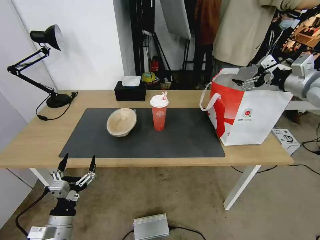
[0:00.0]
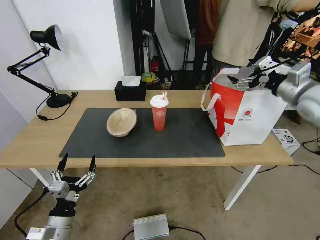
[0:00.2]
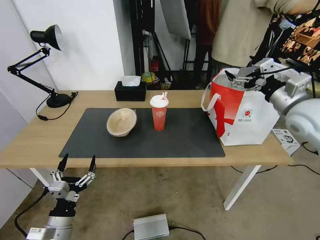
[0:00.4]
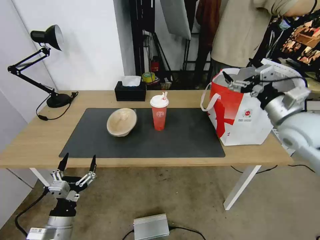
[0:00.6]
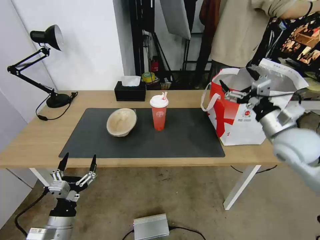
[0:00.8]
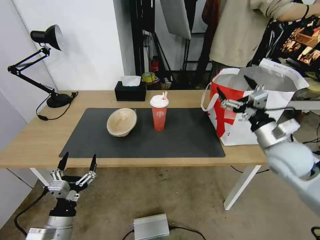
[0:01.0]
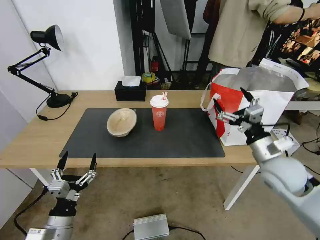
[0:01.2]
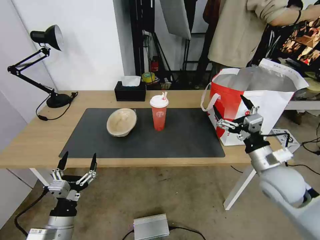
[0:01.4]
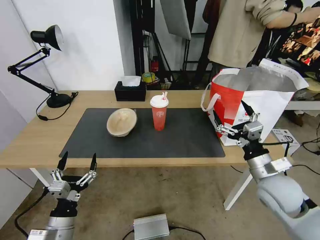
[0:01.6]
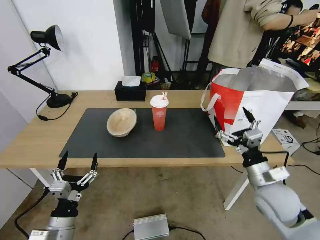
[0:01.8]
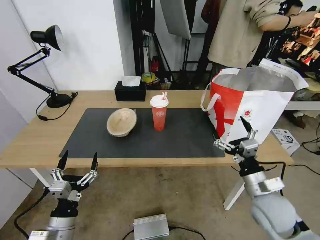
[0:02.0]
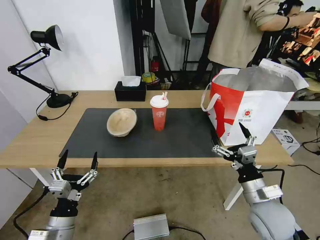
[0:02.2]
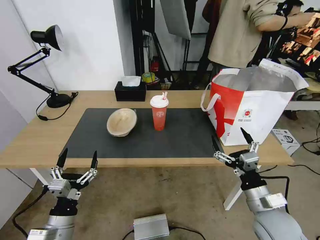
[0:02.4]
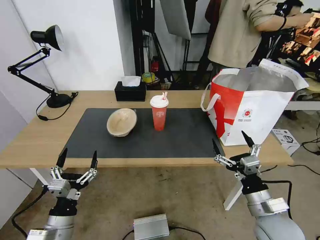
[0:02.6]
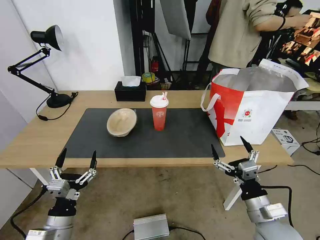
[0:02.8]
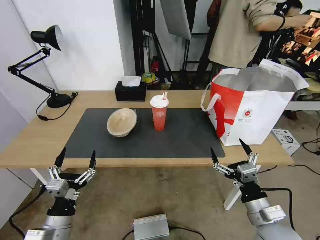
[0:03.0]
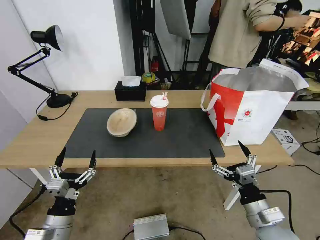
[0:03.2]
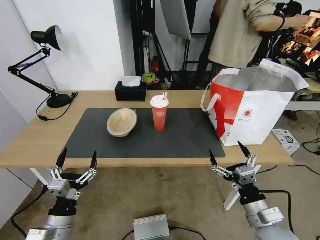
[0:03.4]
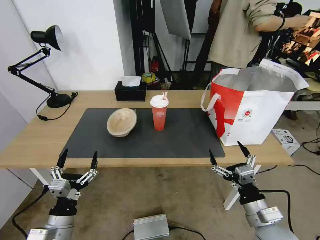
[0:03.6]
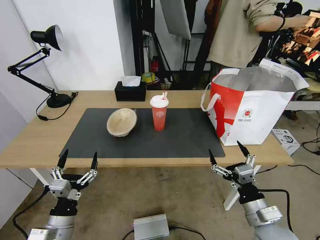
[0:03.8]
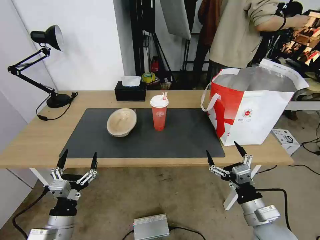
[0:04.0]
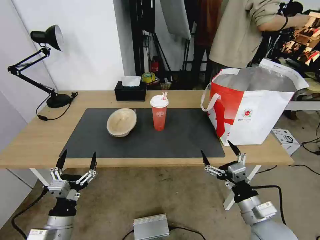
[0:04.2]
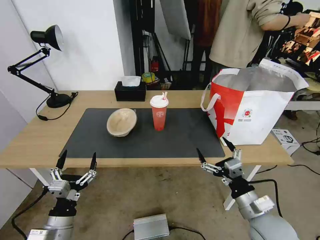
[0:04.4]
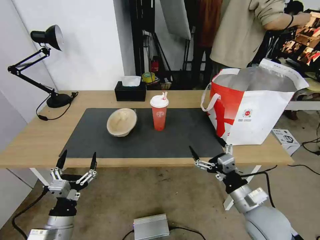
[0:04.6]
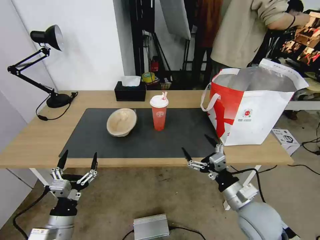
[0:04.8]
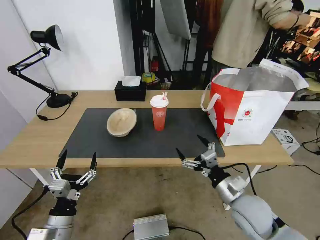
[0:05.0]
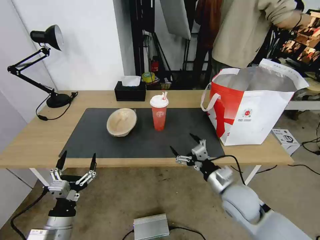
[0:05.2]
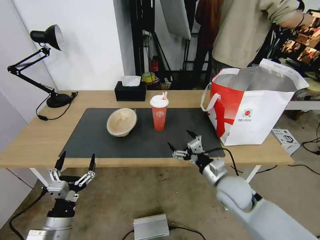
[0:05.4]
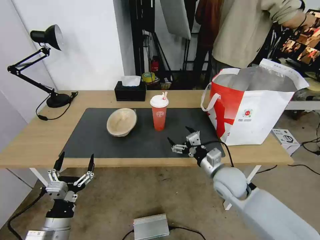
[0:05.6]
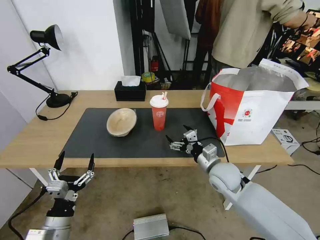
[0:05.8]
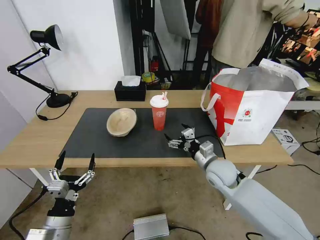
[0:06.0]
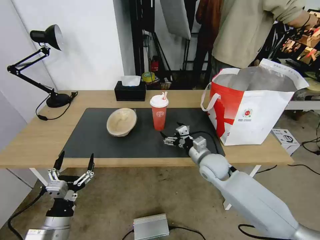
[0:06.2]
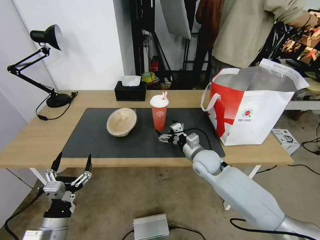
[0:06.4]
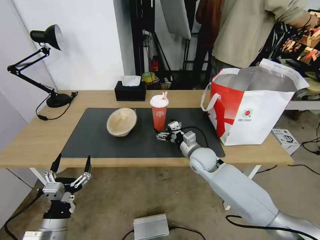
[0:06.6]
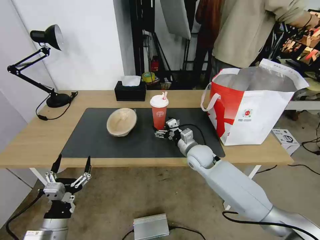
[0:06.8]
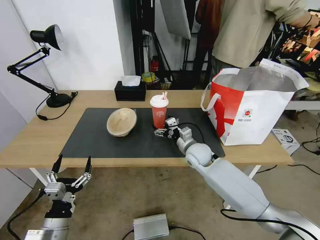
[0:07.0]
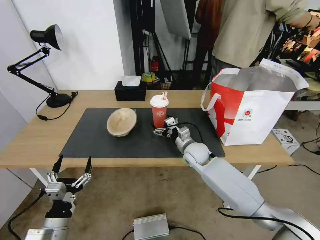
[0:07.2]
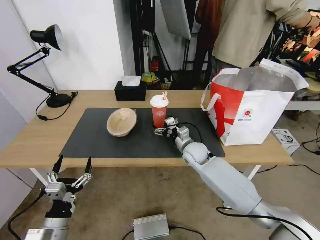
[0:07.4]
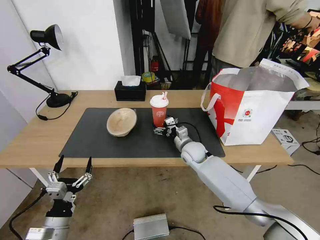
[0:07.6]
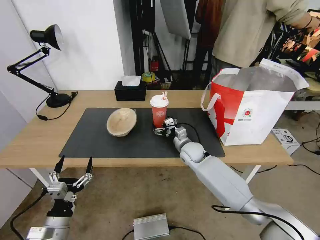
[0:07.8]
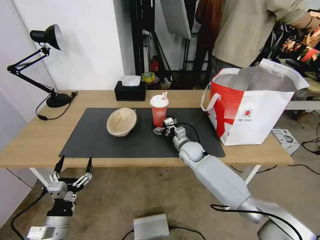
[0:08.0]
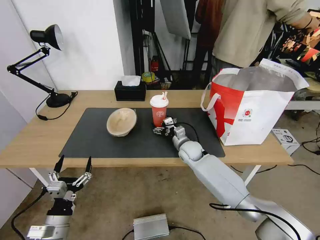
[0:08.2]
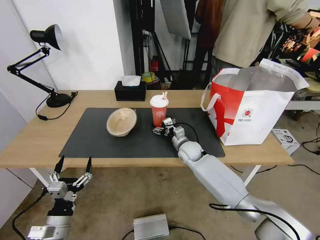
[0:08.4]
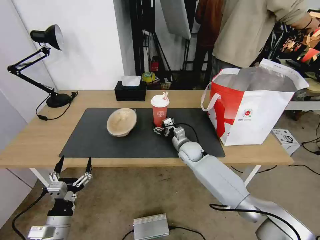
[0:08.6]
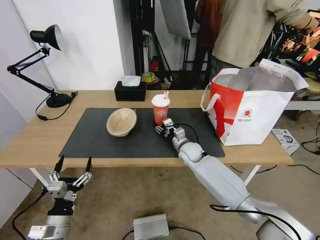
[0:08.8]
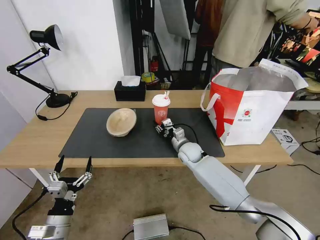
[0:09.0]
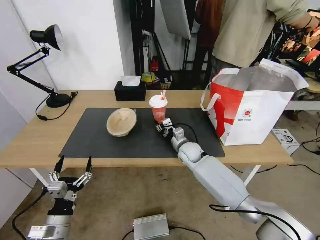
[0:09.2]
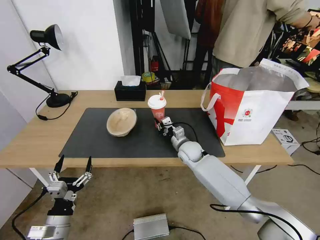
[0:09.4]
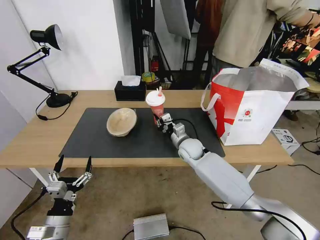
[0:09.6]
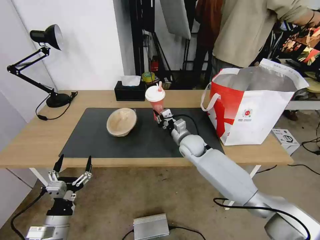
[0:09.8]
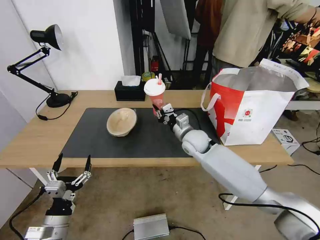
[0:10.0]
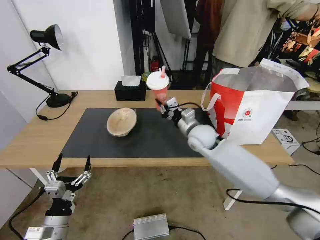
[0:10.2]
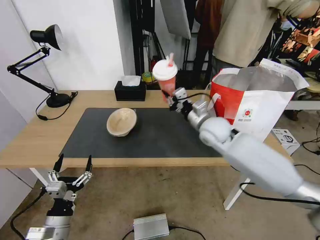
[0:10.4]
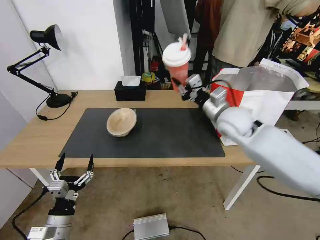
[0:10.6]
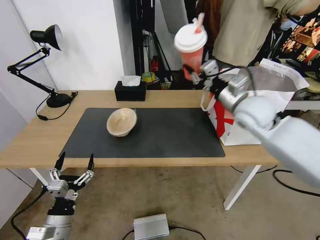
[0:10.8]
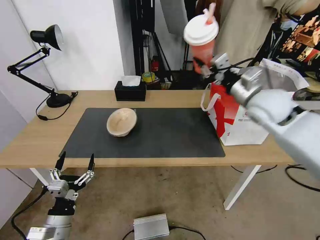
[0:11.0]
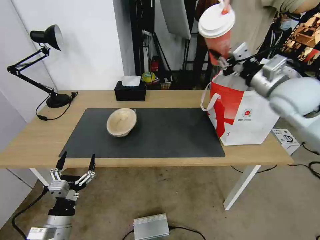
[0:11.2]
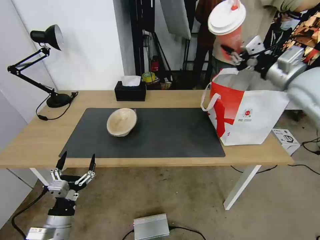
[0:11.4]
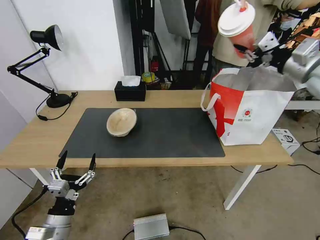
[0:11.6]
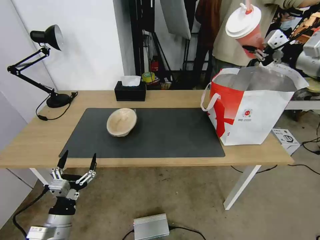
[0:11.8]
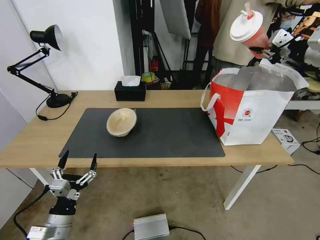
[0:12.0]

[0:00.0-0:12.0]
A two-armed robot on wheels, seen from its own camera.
Task of the whole recording: Pick up the trash from the table and place it into the takeout bag.
0:00.0 to 0:01.6: The right gripper goes about 30 cm downward, backward and to the left.
0:01.6 to 0:03.0: The right gripper is displaced backward and downward by approximately 10 cm.
0:03.0 to 0:04.4: The grippers stay close to where they were, moving slightly.
0:04.4 to 0:06.0: The right gripper goes roughly 20 cm forward.
0:06.0 to 0:07.6: The right gripper heads forward and to the left, covering roughly 15 cm.
0:07.6 to 0:09.0: The right gripper closes.
0:09.0 to 0:10.4: The right gripper is displaced upward by about 15 cm.
0:10.4 to 0:12.0: The right gripper travels to the right and upward by approximately 35 cm.

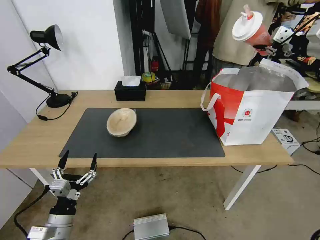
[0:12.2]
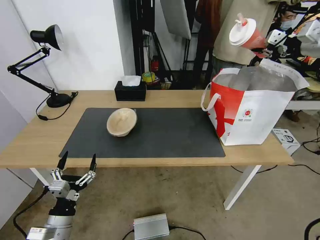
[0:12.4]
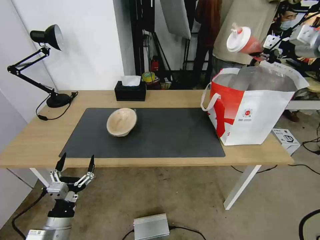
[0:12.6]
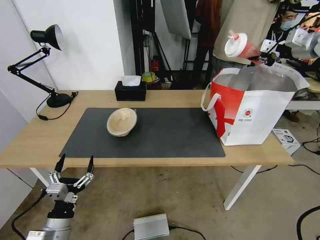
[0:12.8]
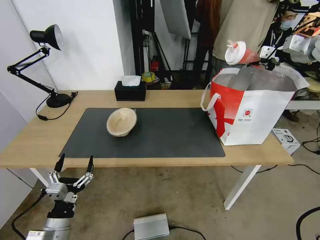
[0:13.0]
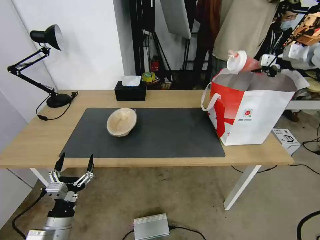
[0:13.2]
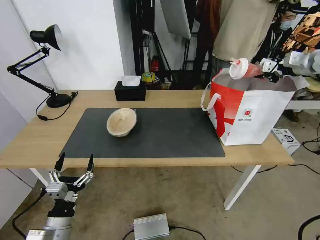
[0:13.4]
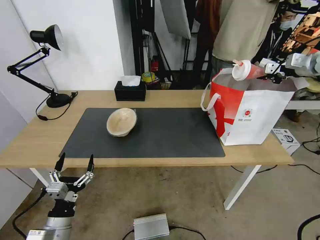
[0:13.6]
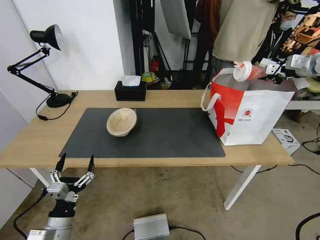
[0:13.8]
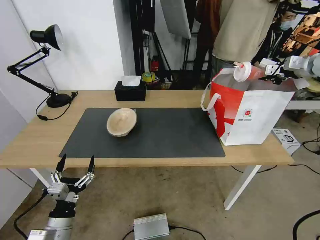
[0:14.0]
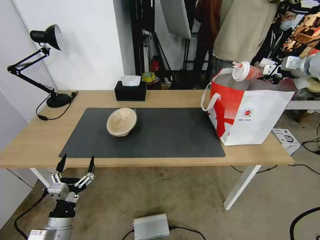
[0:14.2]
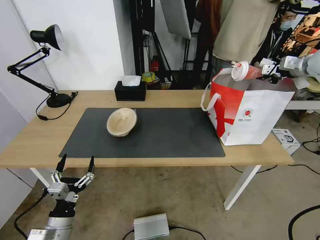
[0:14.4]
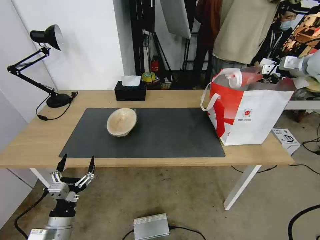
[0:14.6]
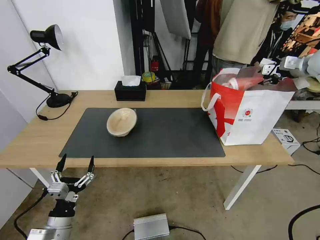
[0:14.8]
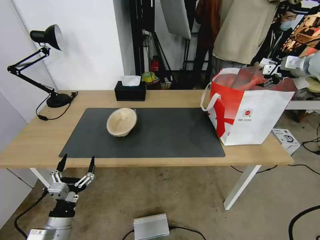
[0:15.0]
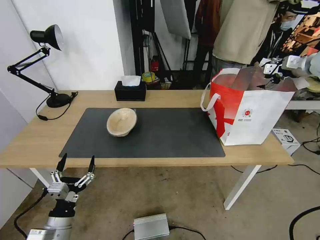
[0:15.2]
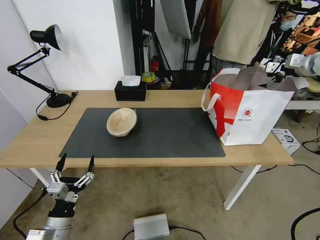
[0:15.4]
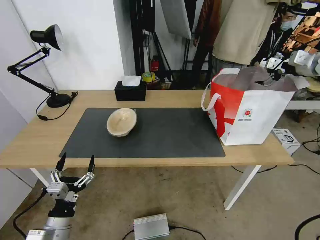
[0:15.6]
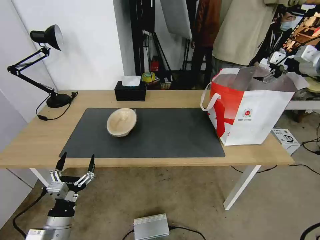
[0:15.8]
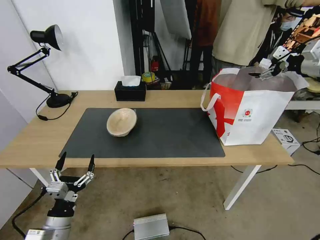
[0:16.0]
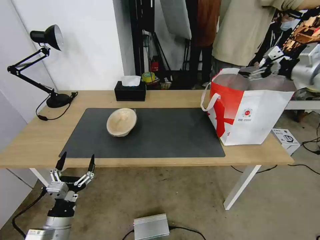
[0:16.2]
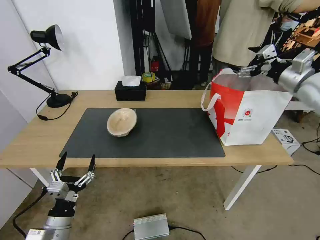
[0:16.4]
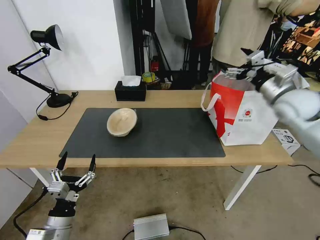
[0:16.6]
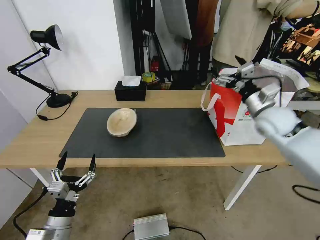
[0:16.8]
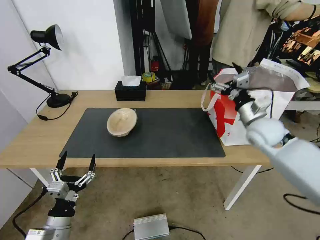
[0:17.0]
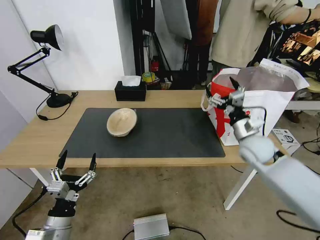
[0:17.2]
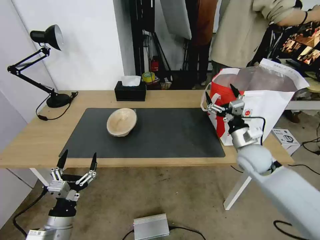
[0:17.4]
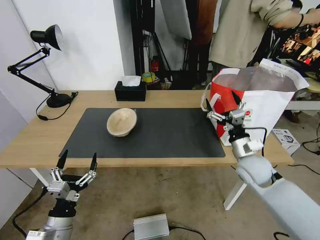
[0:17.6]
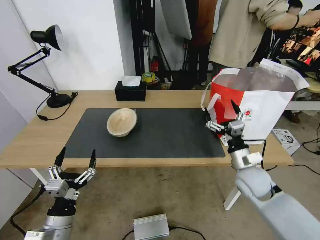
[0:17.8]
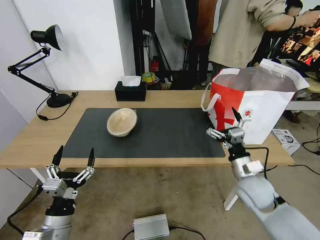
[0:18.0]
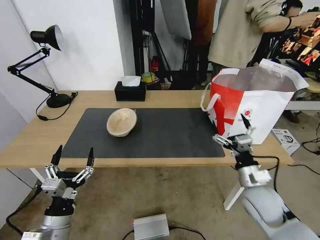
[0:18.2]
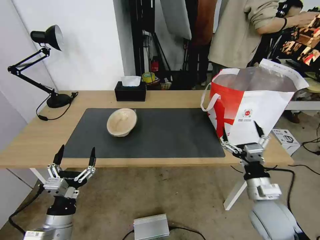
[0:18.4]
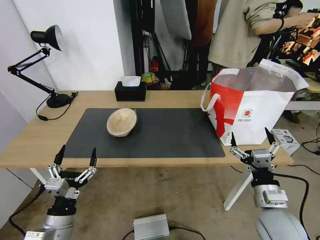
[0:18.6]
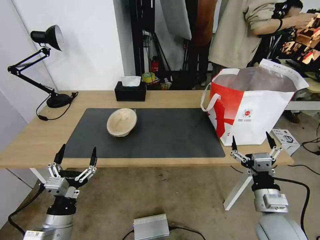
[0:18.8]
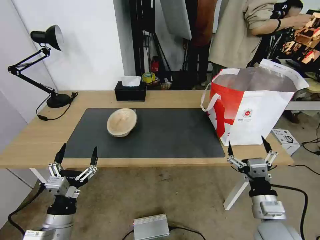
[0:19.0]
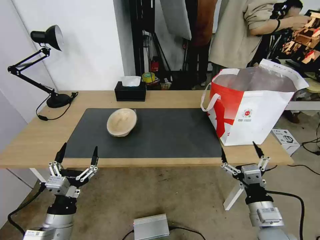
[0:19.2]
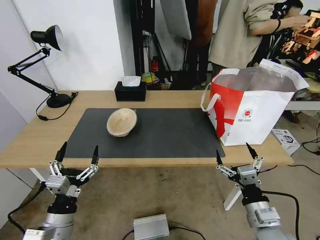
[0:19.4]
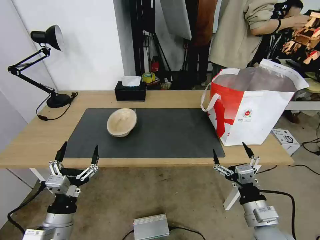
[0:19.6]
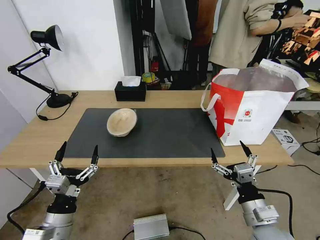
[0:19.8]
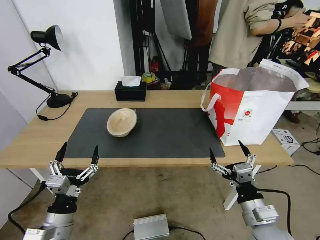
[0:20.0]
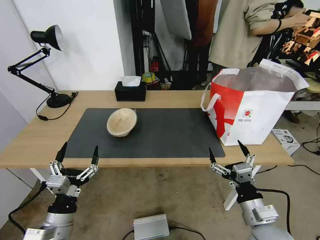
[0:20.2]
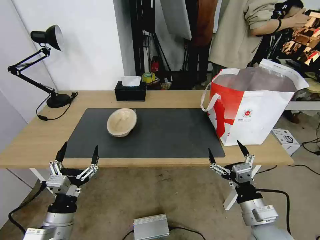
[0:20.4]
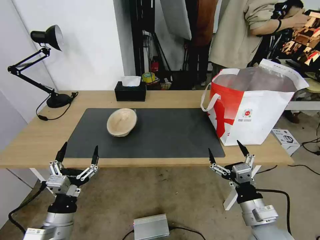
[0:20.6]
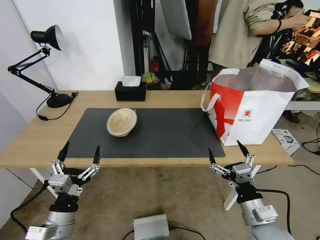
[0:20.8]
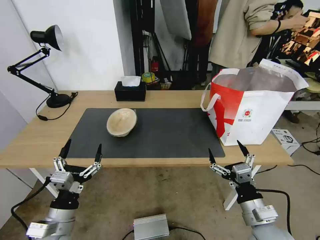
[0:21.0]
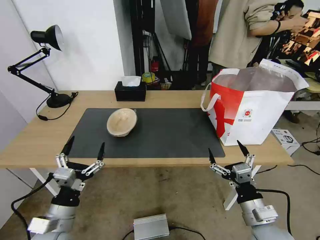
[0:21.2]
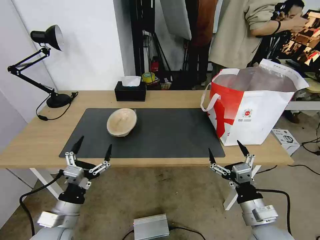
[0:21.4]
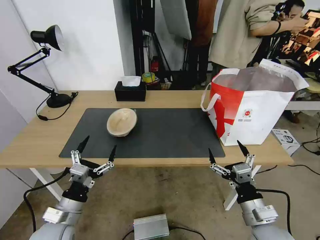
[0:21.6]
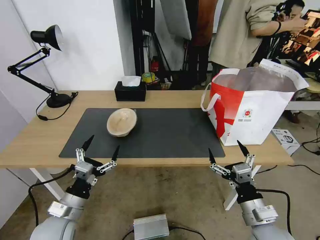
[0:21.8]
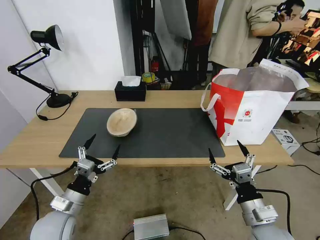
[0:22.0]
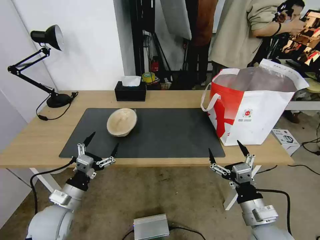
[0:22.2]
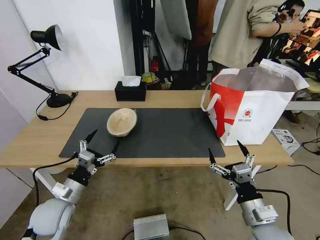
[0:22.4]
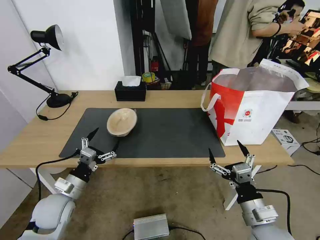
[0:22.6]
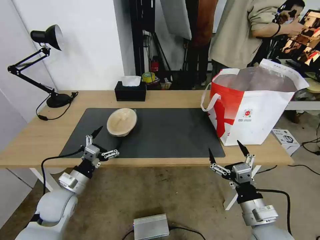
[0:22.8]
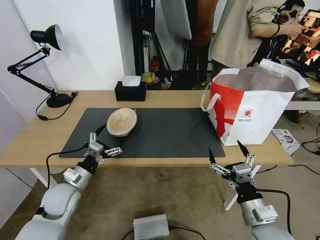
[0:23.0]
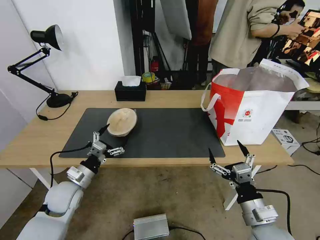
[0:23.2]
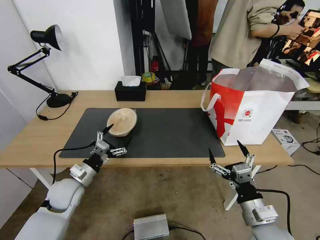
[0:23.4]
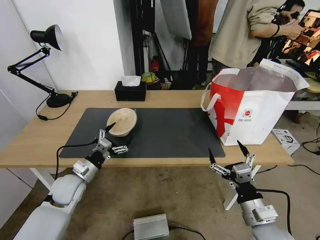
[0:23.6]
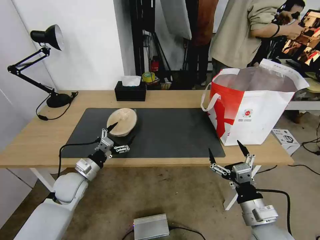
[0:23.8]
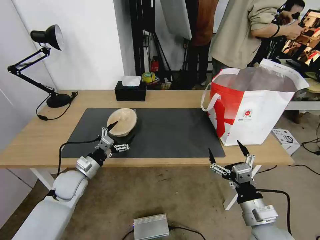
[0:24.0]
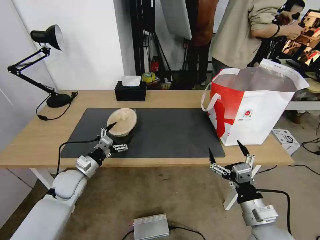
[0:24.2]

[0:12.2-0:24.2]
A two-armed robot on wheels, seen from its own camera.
Task of the whole recording: Pick up the trash from the table and place it into the takeout bag.
0:12.2 to 0:13.8: The right gripper travels forward, downward and to the right by about 10 cm.
0:13.8 to 0:15.2: The right gripper opens.
0:15.2 to 0:16.6: The right gripper goes some 20 cm to the left, backward and downward.
0:16.6 to 0:18.2: The right gripper travels downward, backward and to the left by about 30 cm.
0:18.2 to 0:19.8: The right gripper heads backward, covering approximately 10 cm.
0:19.8 to 0:21.2: The grippers stay close to where they were, moving slightly.
0:21.2 to 0:22.6: The left gripper shifts about 10 cm forward.
0:22.6 to 0:24.2: The left gripper is displaced forward by approximately 10 cm.
